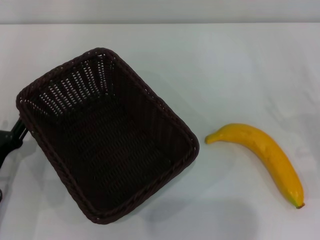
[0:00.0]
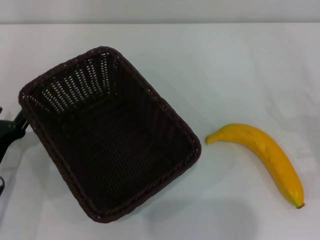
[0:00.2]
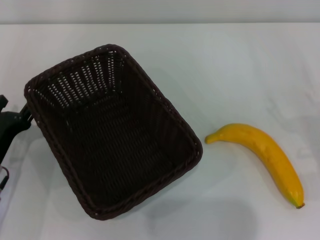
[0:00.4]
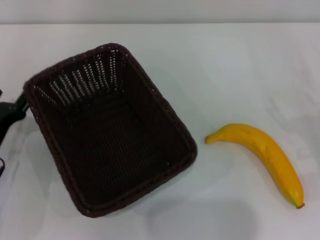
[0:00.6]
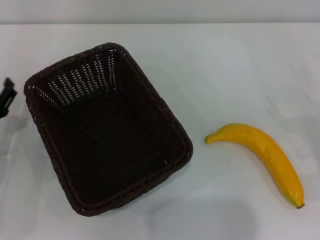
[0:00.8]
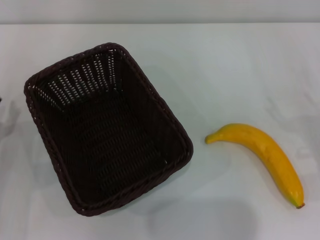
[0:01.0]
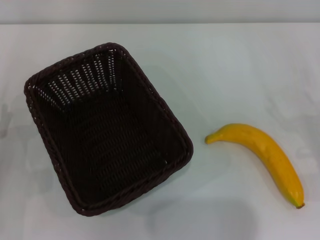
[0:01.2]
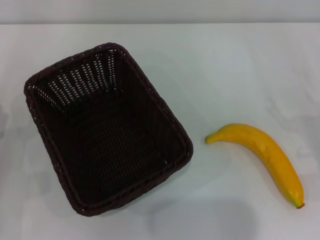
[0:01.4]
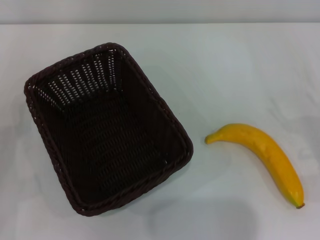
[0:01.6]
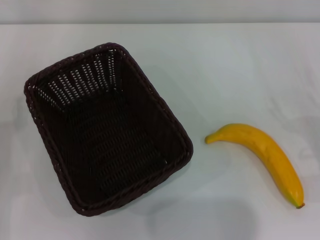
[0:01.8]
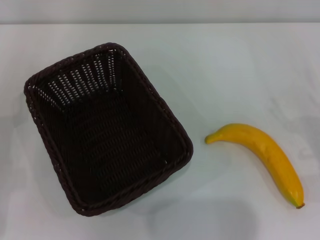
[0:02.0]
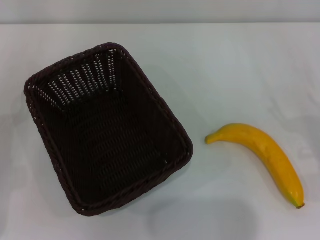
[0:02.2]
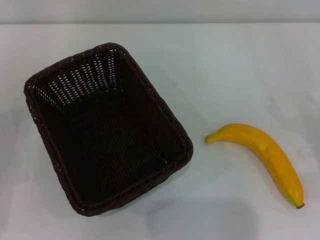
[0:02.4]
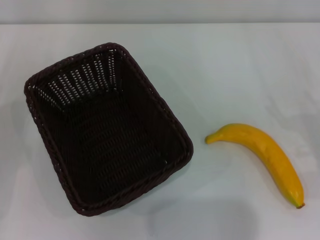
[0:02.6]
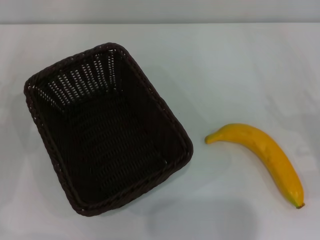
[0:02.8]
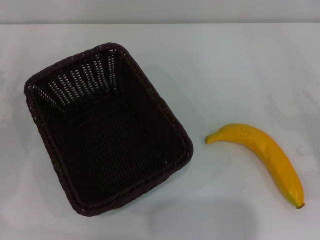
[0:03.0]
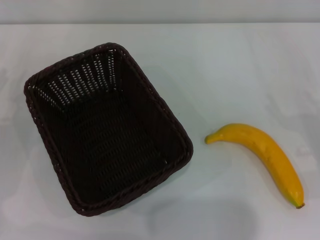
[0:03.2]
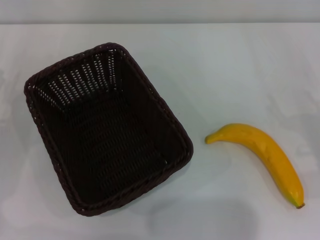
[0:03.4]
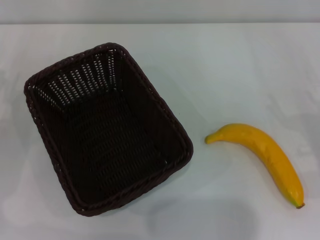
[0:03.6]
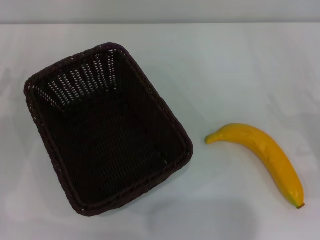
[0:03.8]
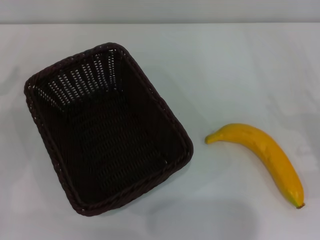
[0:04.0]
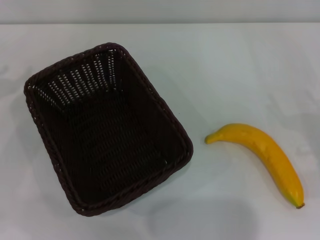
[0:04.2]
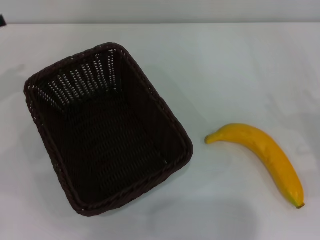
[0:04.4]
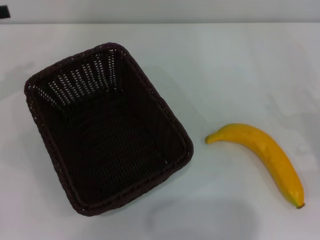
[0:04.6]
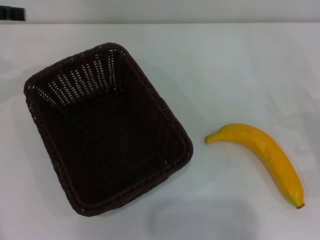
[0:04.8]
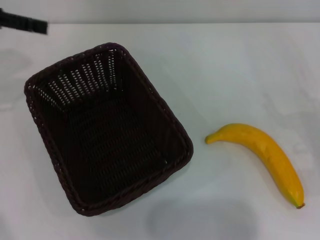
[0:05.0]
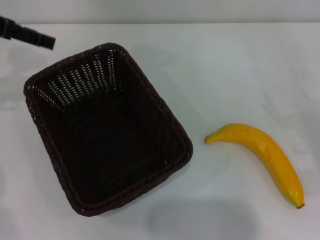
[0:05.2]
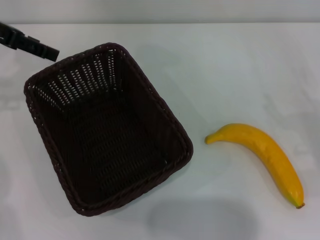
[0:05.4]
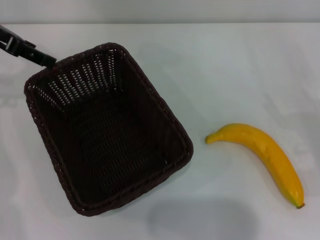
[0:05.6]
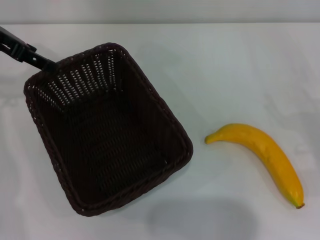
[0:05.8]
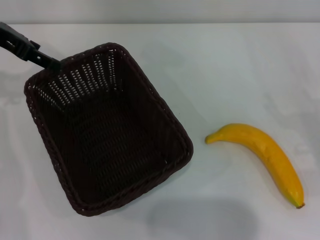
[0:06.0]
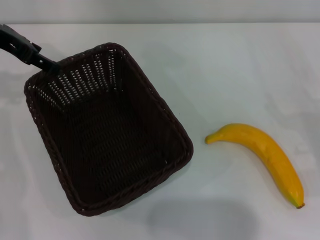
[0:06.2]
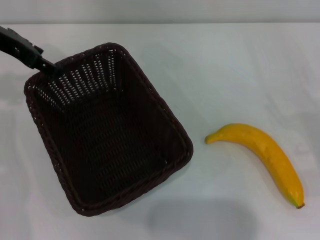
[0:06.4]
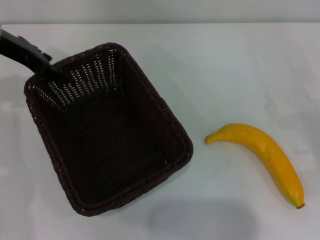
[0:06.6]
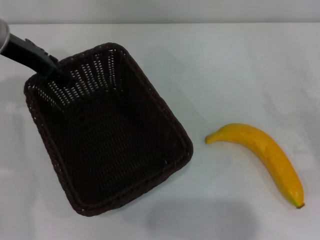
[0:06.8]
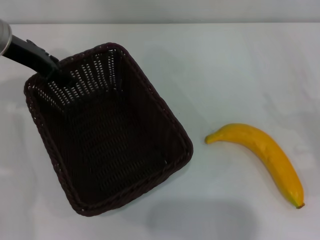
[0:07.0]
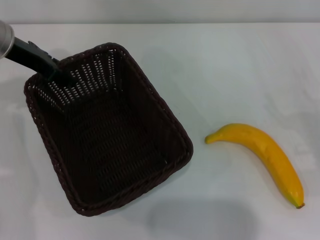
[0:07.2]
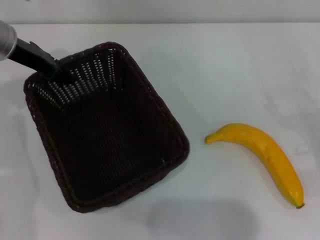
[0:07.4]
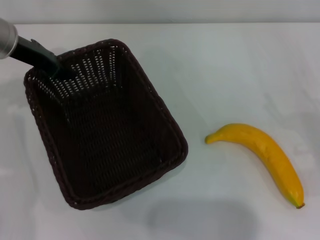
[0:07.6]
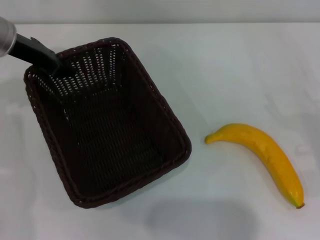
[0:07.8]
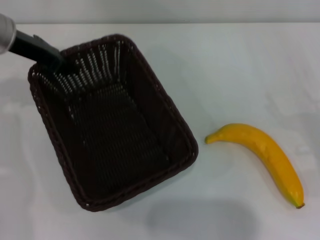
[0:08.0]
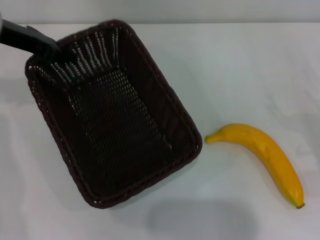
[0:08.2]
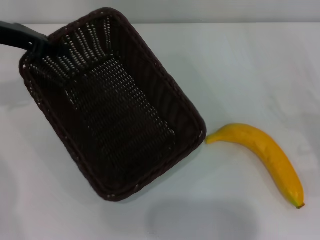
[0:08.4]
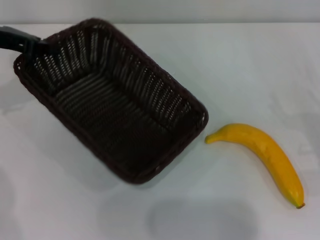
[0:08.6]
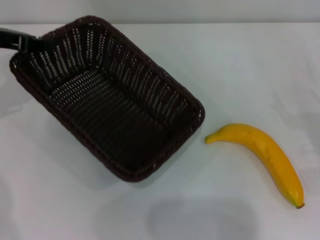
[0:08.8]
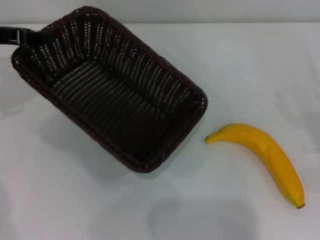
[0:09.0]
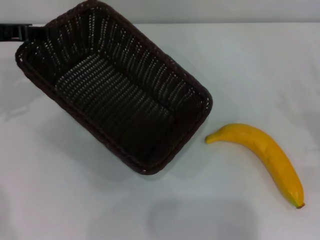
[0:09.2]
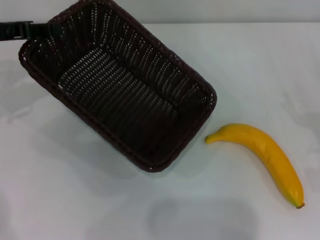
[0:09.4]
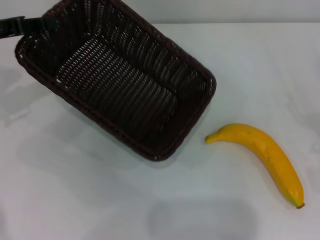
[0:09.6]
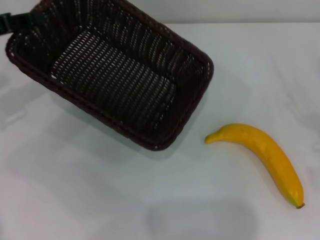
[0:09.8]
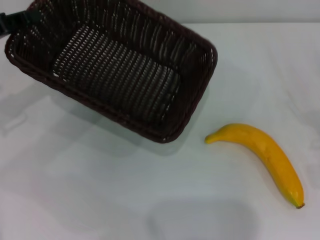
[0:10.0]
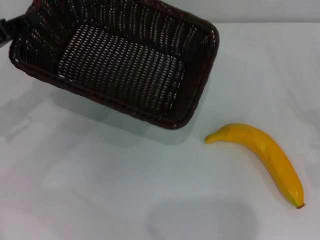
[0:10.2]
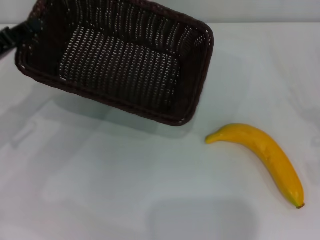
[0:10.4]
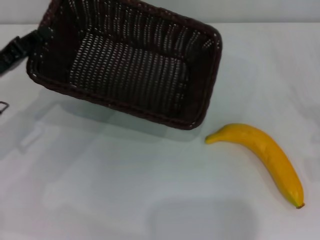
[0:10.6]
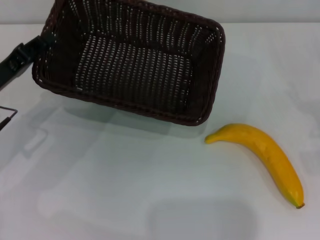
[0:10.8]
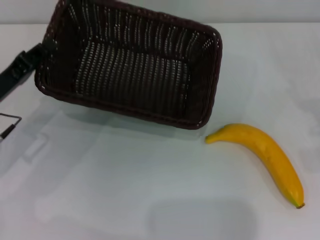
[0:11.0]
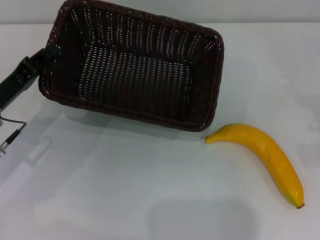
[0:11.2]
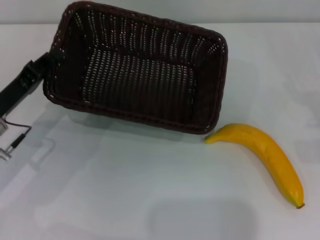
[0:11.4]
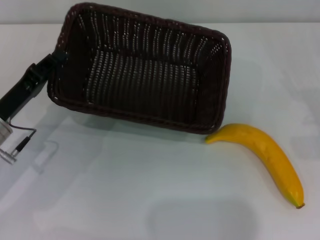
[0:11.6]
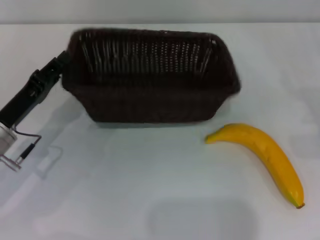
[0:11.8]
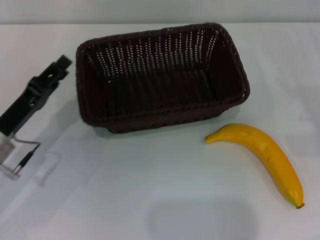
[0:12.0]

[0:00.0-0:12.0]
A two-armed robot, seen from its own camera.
Step, 0:00.0 to 0:08.0: Pick up the dark basket with the left gripper.
Step, 0:08.2 to 0:11.8: Place the dark basket in the center of view with the left gripper.
0:00.0 to 0:01.6: The left gripper shifts approximately 5 cm to the left.
0:04.4 to 0:06.0: The left gripper travels to the right, forward and upward by about 15 cm.
0:06.0 to 0:07.6: The left gripper is displaced downward by some 5 cm, and closes up.
0:07.6 to 0:09.0: The left gripper travels to the left by some 5 cm, and closes.
0:09.0 to 0:10.4: The left gripper goes some 10 cm backward and downward.
0:10.4 to 0:12.0: The right gripper ends up about 5 cm from where it was. The left gripper travels downward, backward and to the right by some 10 cm.

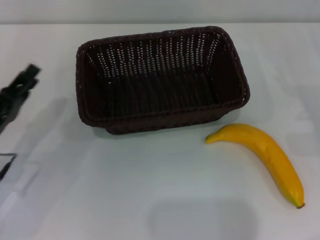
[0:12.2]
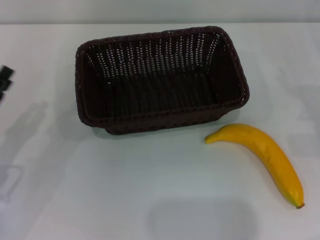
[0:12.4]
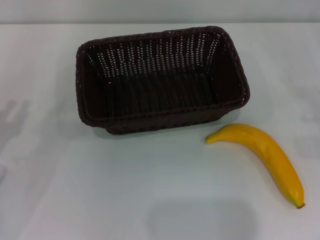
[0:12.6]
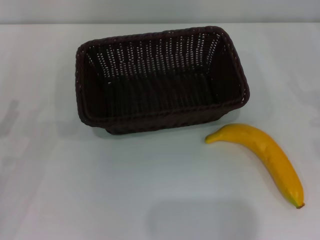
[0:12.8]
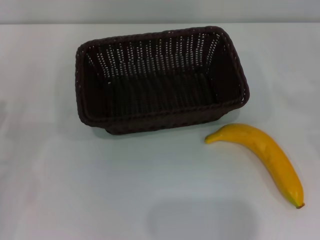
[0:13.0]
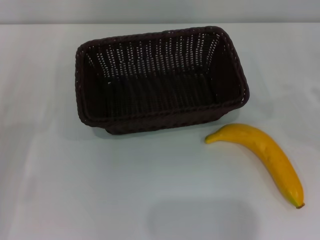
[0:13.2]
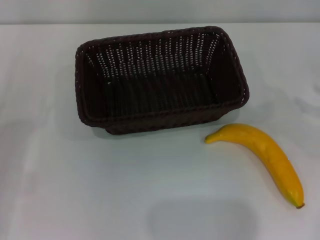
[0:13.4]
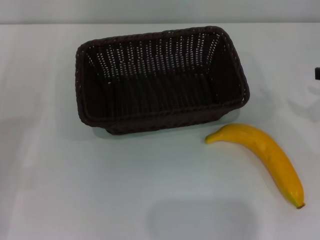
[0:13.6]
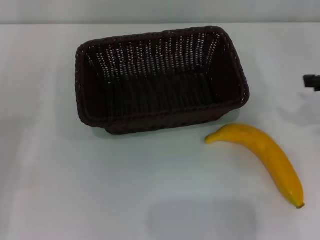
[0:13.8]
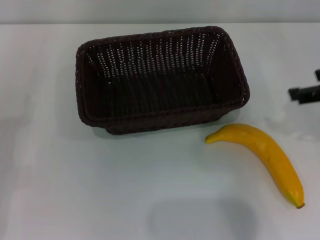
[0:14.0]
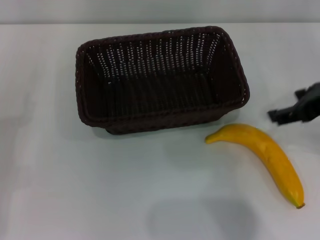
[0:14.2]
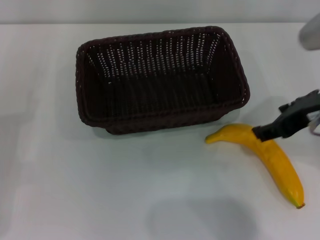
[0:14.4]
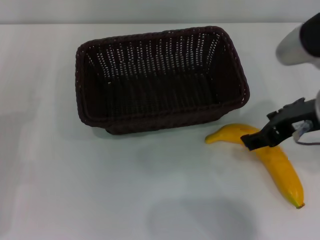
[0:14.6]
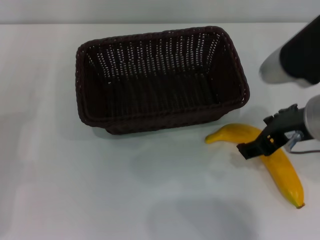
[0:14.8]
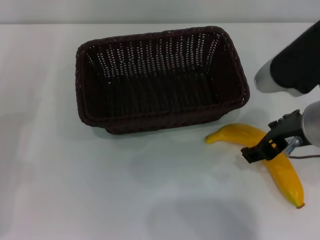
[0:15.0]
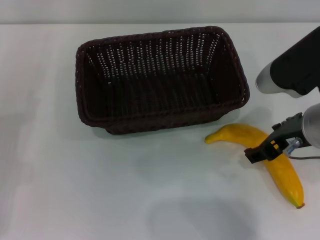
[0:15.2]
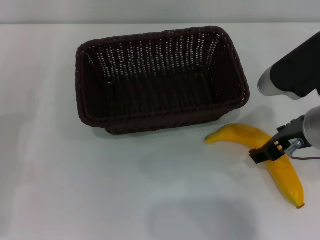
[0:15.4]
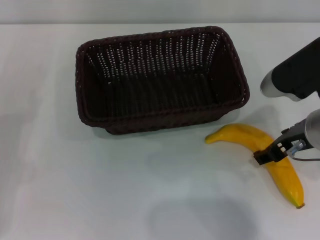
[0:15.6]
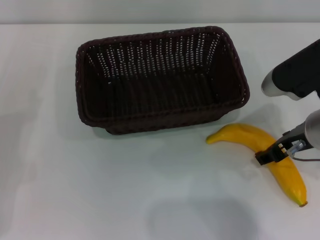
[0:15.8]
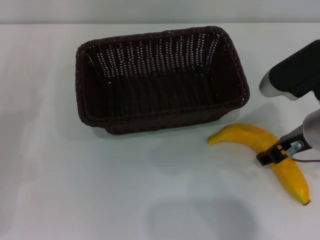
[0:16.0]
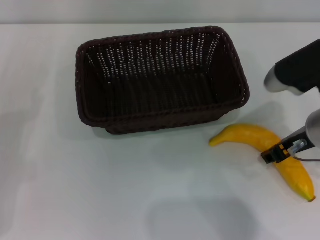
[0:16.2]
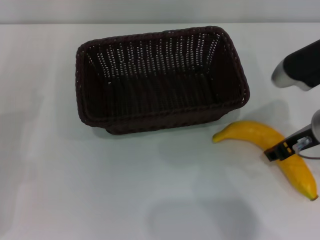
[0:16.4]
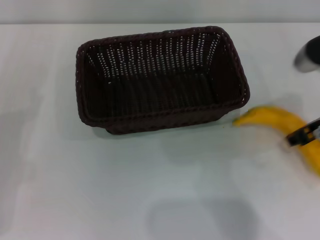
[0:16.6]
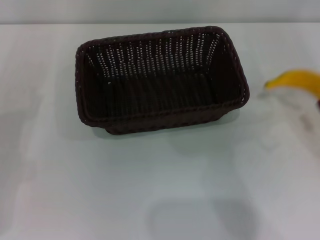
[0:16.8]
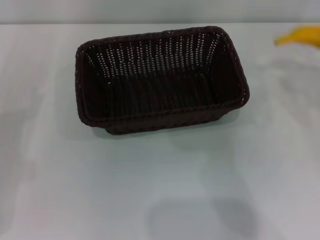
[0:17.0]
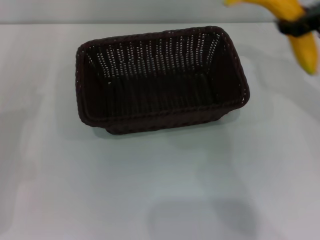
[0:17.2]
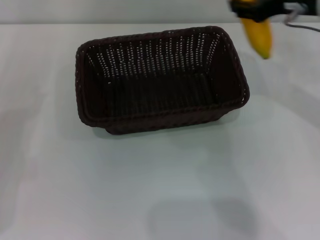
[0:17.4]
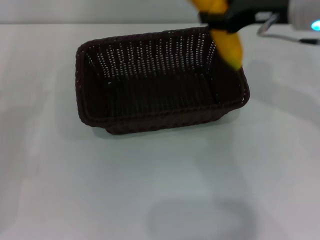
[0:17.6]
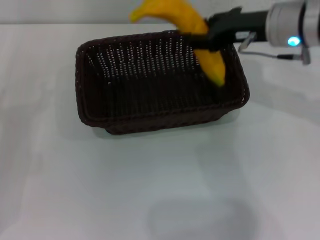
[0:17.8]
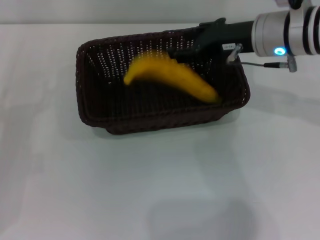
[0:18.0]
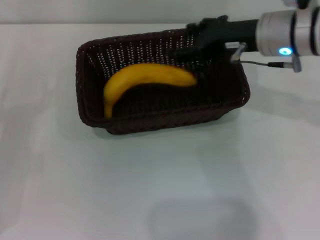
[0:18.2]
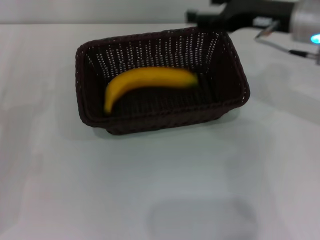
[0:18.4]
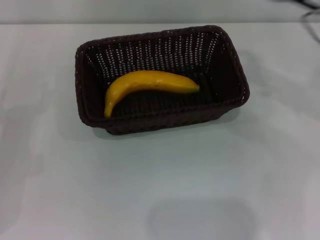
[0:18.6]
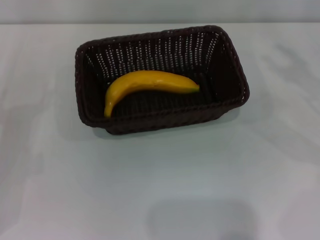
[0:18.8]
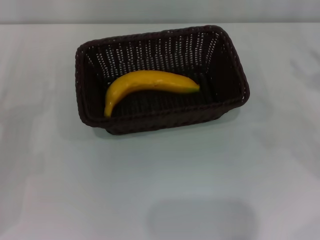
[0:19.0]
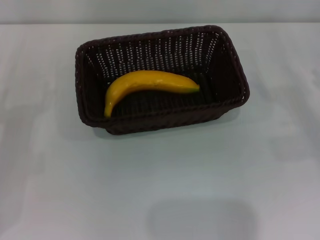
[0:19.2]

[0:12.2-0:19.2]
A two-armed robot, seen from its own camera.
Step, 0:12.2 to 0:16.6: Pick up the banana with the right gripper.
Step, 0:16.8 to 0:18.2: Place the banana into the dark basket with the right gripper.
0:12.2 to 0:13.6: The left gripper goes roughly 5 cm to the left, and opens up.
0:13.6 to 0:15.0: The right gripper goes roughly 20 cm to the left.
0:15.0 to 0:16.4: The right gripper moves about 5 cm, and closes up.
0:16.4 to 0:17.8: The right gripper shifts about 10 cm forward and upward, and goes to the right and returns, some 5 cm each way.
0:17.8 to 0:19.2: The right gripper shifts some 25 cm to the right, downward and backward, and opens its fingers.
